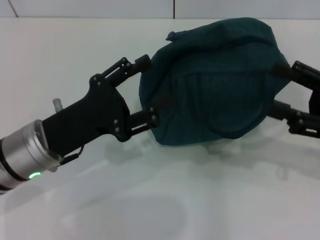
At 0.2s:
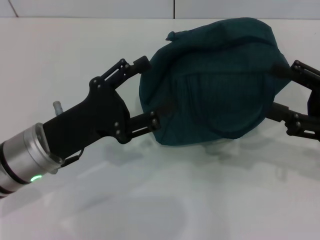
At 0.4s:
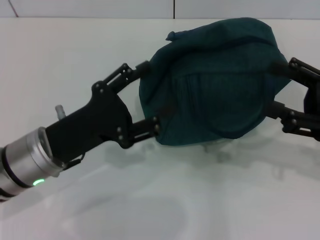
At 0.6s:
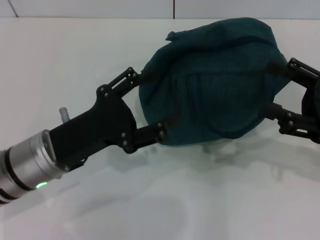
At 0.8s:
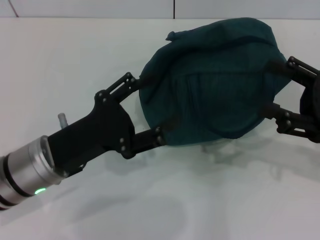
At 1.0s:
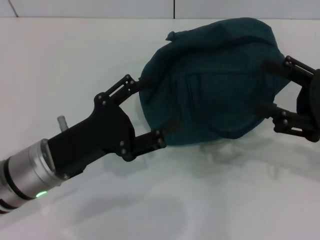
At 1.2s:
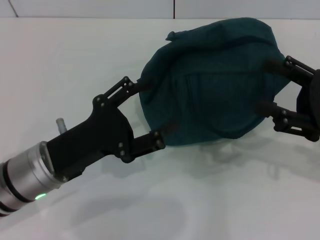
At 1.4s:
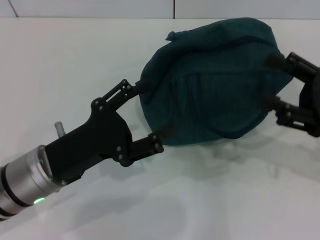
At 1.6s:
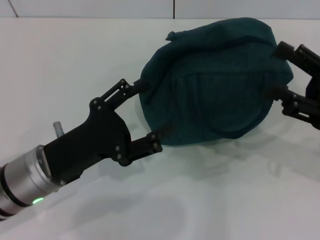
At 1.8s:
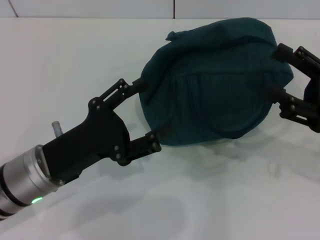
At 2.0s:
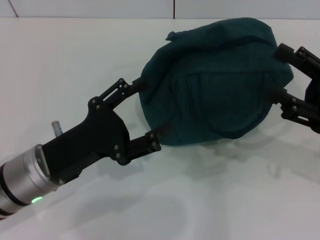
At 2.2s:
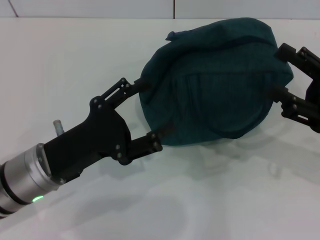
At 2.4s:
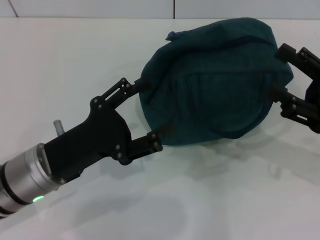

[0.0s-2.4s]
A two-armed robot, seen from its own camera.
0.0s to 2.4s: The grippers move only a little.

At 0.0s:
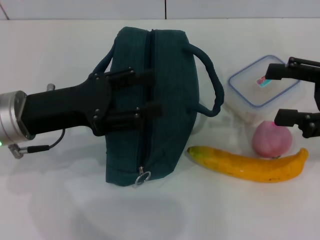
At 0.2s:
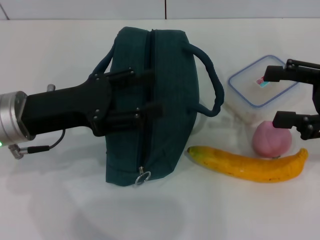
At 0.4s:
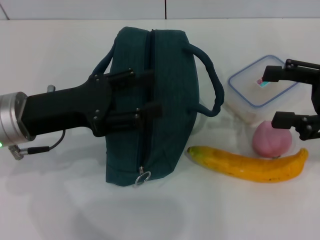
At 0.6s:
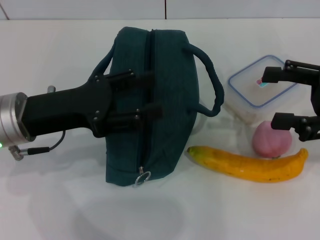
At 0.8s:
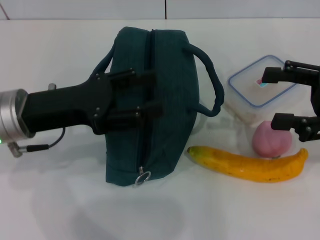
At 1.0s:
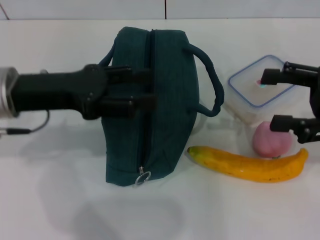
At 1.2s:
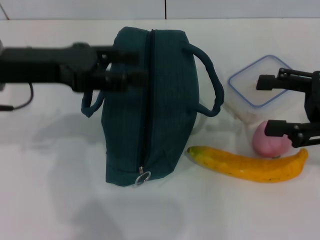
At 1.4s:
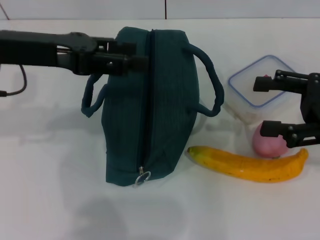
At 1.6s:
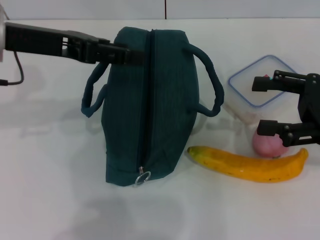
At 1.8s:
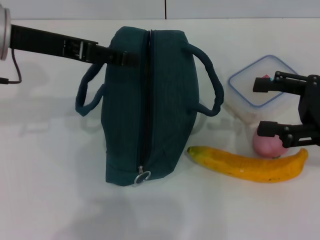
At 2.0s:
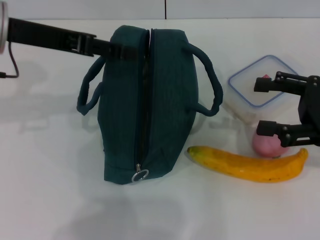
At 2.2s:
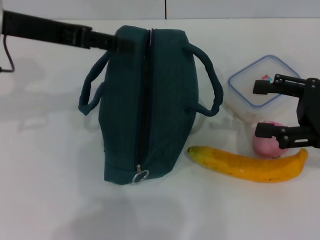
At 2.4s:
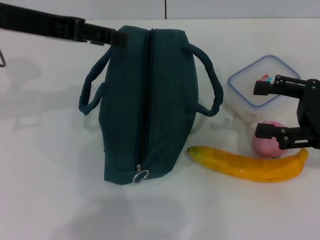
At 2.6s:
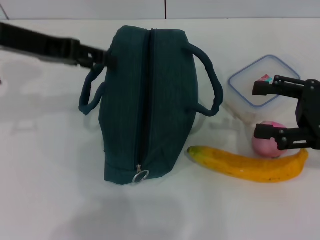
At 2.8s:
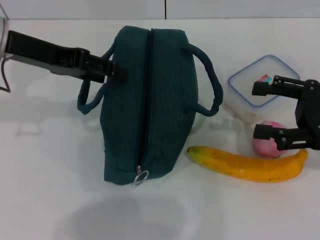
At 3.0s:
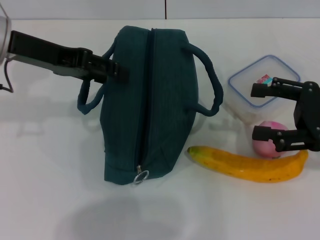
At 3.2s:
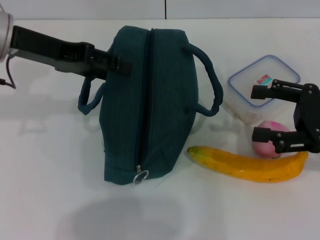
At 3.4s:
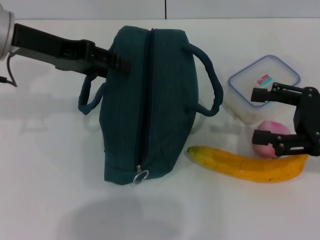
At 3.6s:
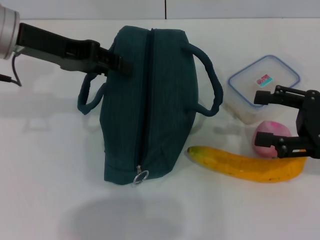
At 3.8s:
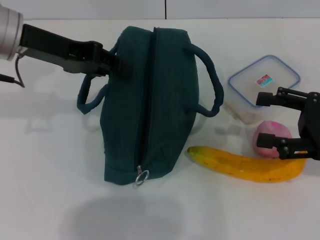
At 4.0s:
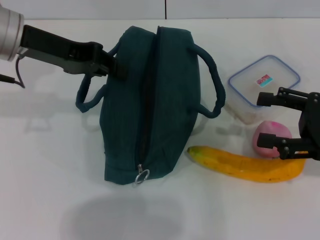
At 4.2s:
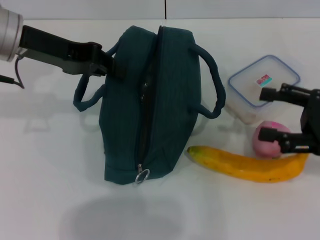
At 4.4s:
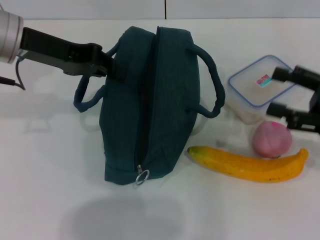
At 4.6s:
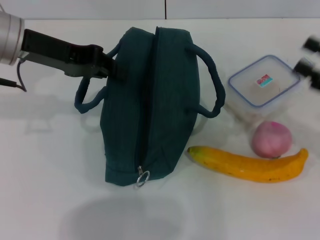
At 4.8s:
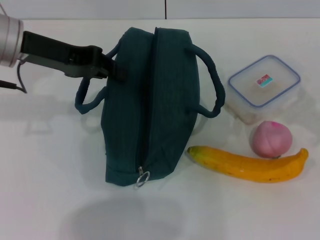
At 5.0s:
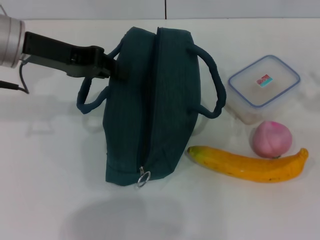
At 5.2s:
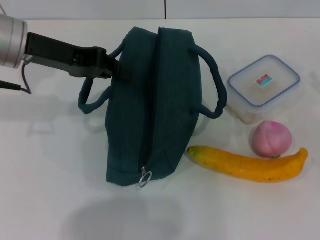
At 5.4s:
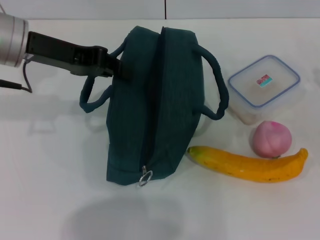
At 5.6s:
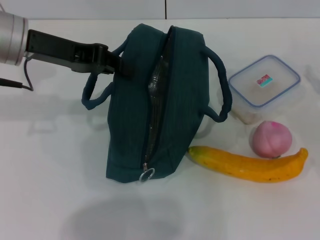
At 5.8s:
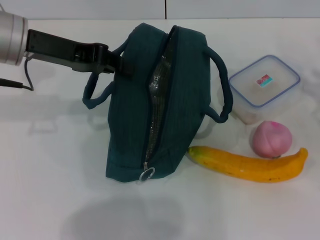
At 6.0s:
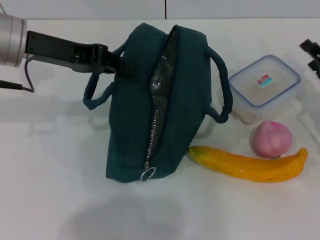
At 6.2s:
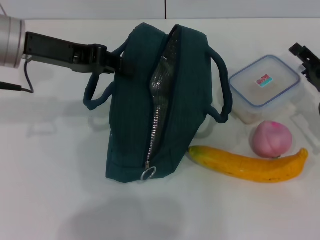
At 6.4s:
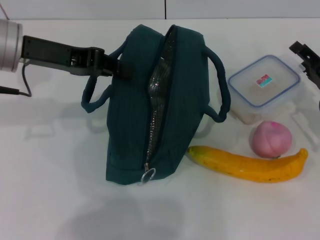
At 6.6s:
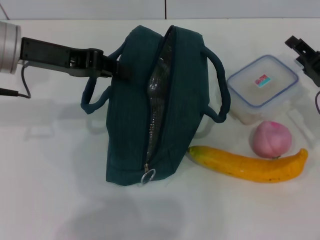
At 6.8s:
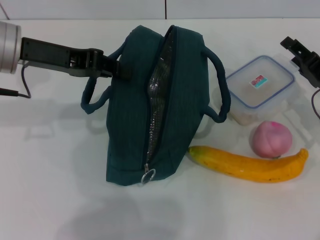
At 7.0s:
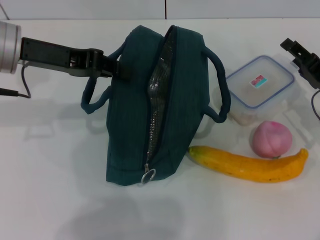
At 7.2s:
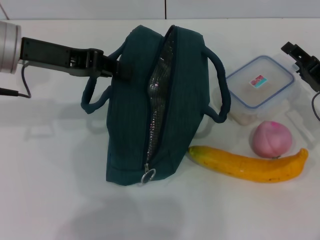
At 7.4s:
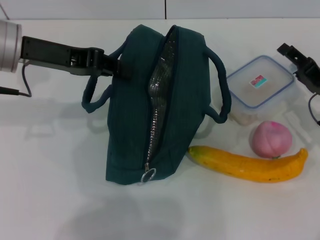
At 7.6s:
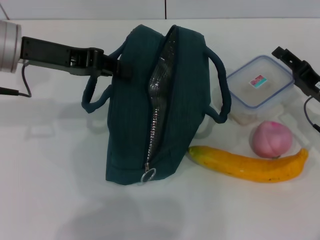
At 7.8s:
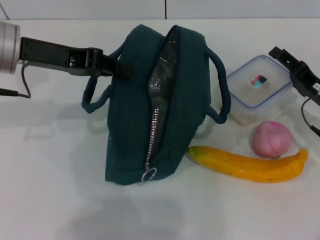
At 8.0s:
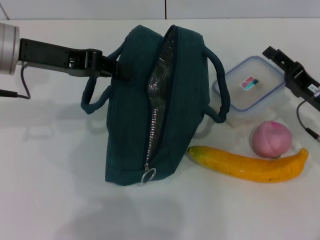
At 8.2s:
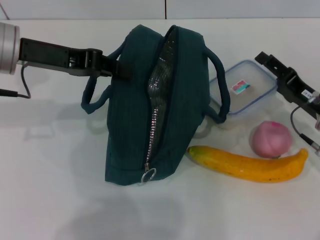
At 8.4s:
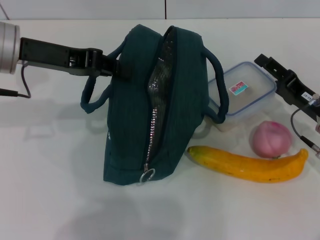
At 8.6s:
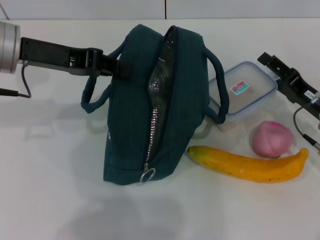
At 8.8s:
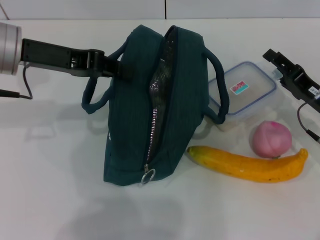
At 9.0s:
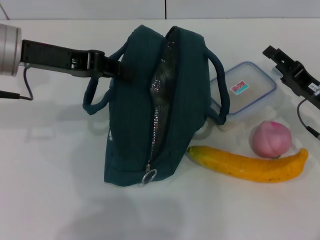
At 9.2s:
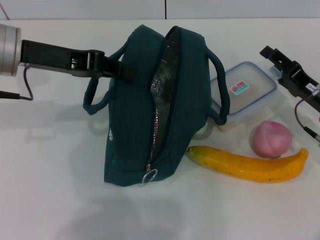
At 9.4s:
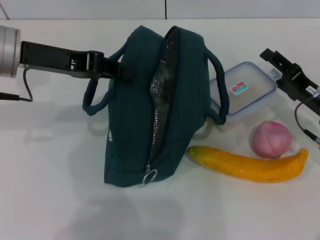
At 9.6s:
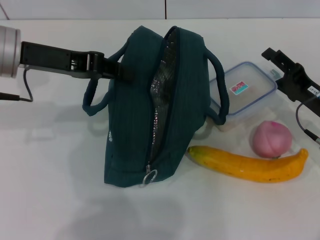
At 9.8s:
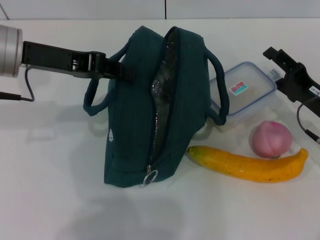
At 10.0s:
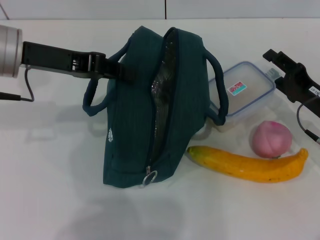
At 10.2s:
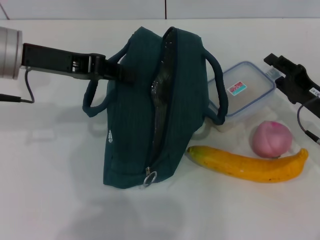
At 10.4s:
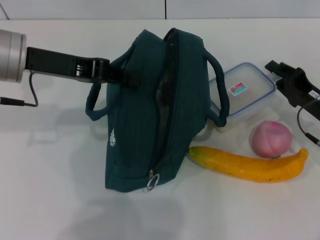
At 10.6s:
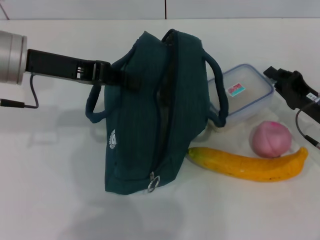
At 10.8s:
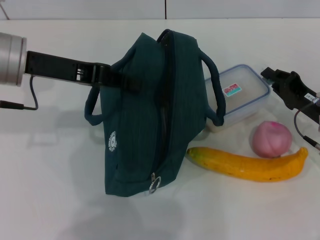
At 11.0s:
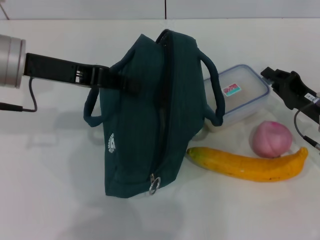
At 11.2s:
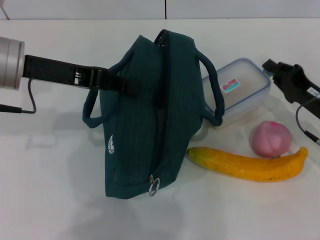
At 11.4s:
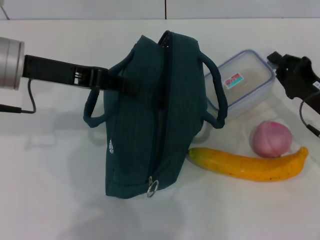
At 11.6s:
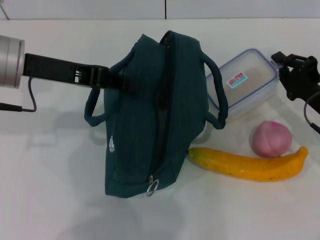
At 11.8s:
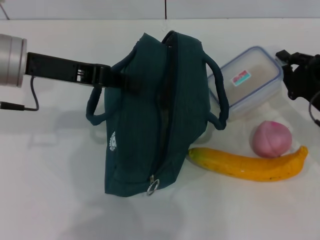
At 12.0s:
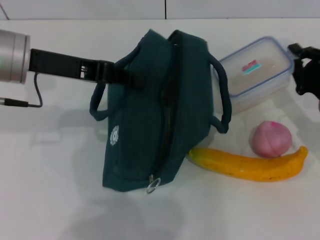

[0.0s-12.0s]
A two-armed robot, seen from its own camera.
Step, 0.0s to 5.0s: Hold the lunch bag with your left hand.
Step, 5.2s to 11.2s: Pick up the lunch box with your right hand.
0.0s to 1.6s: The left gripper goes roughly 10 cm upward and forward.
3.0s to 4.4s: The left gripper closes up.
4.4s to 6.0s: The right gripper shifts roughly 10 cm downward and forward.
6.0s to 10.4s: The grippers move only a little.
10.4s to 12.0s: The right gripper closes.

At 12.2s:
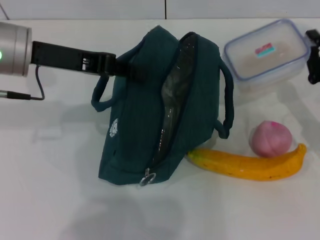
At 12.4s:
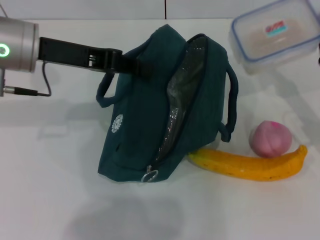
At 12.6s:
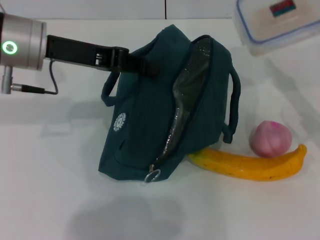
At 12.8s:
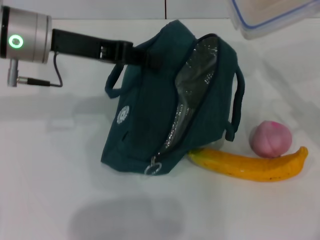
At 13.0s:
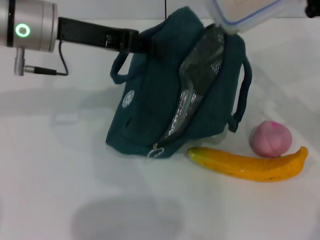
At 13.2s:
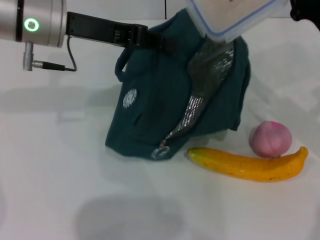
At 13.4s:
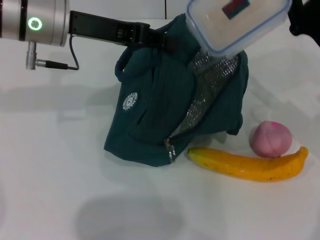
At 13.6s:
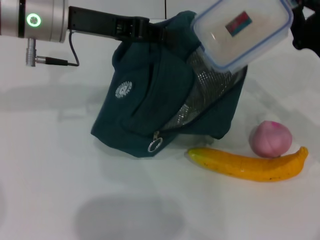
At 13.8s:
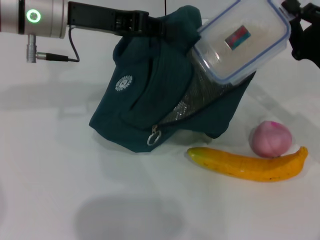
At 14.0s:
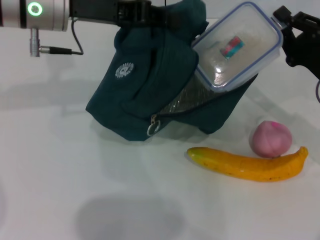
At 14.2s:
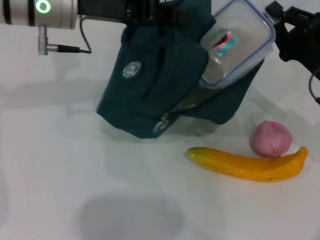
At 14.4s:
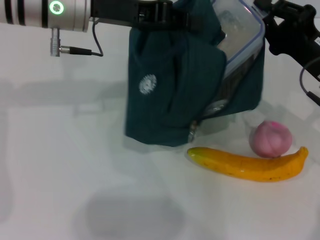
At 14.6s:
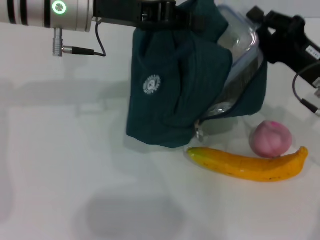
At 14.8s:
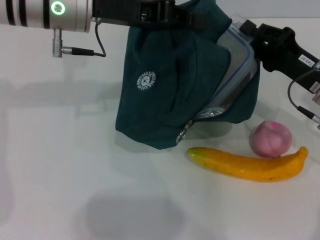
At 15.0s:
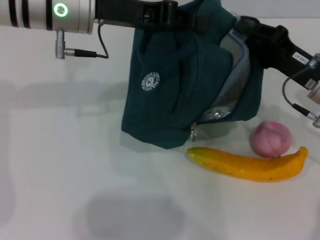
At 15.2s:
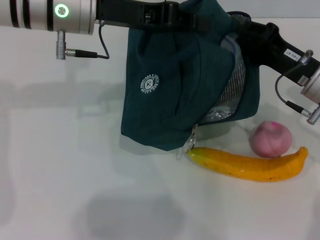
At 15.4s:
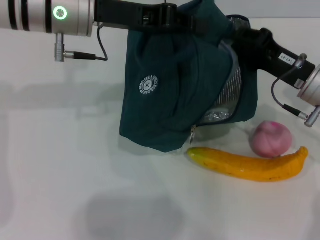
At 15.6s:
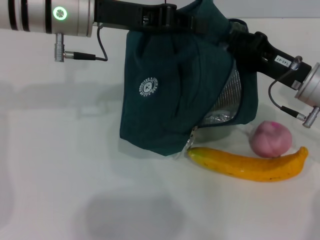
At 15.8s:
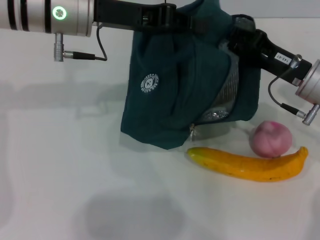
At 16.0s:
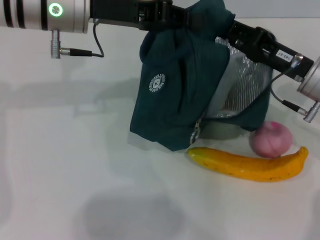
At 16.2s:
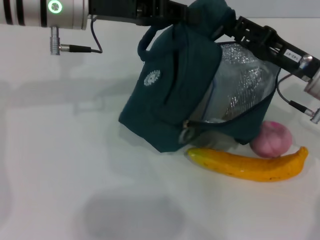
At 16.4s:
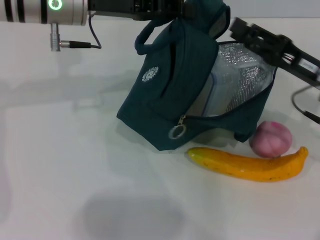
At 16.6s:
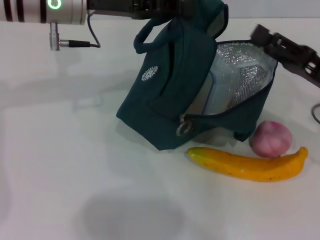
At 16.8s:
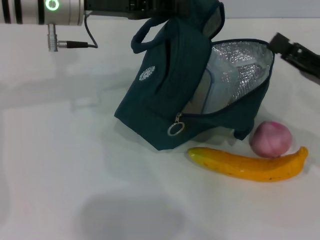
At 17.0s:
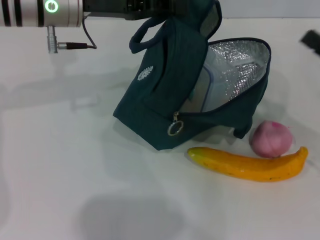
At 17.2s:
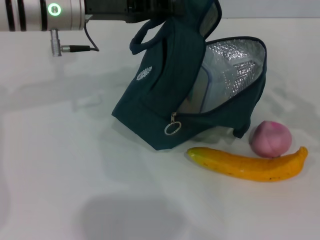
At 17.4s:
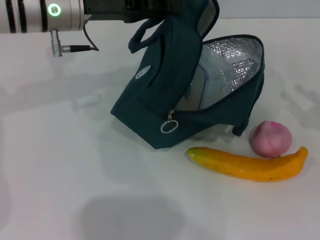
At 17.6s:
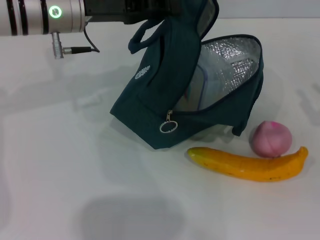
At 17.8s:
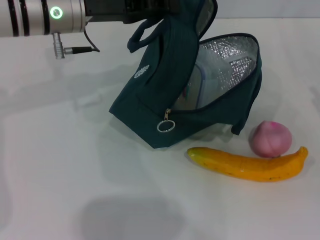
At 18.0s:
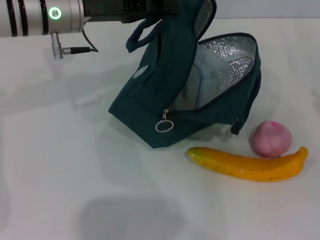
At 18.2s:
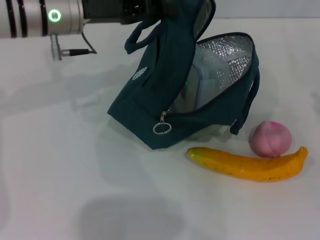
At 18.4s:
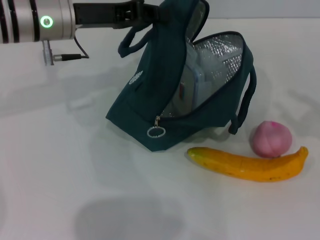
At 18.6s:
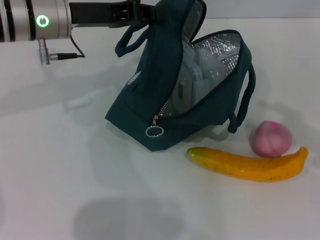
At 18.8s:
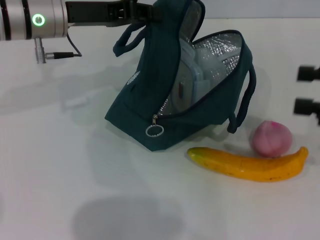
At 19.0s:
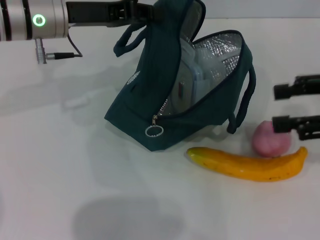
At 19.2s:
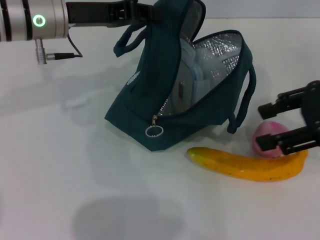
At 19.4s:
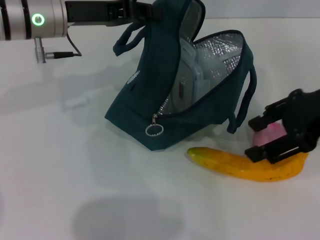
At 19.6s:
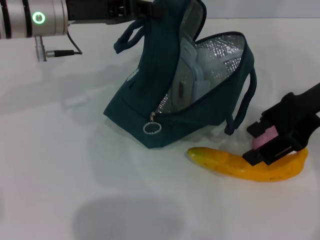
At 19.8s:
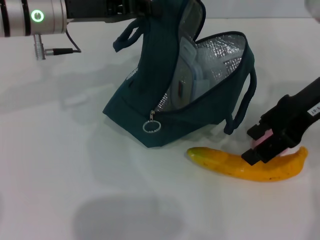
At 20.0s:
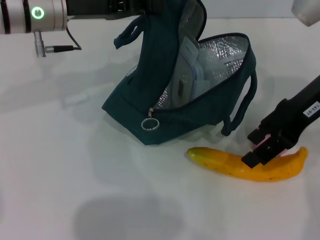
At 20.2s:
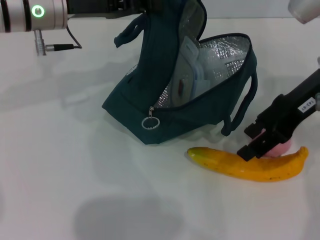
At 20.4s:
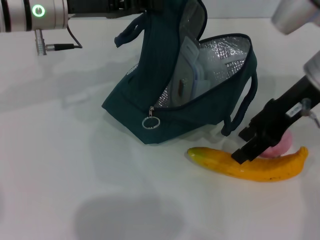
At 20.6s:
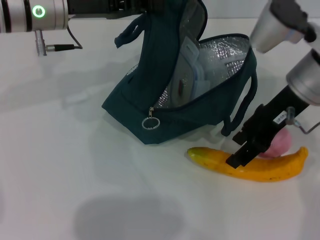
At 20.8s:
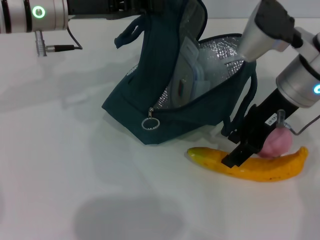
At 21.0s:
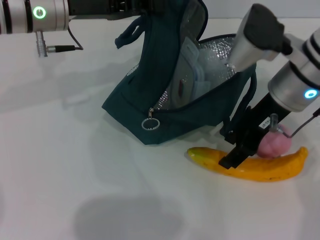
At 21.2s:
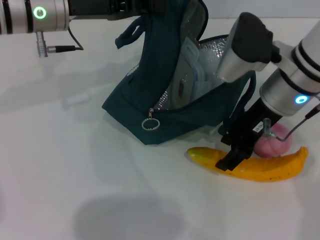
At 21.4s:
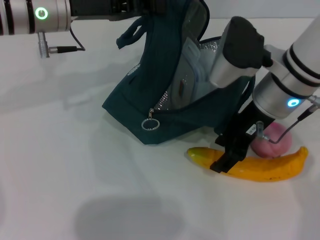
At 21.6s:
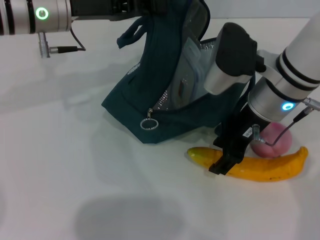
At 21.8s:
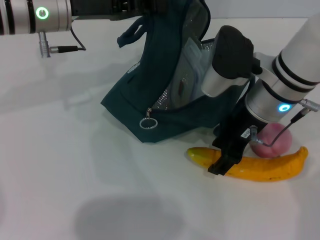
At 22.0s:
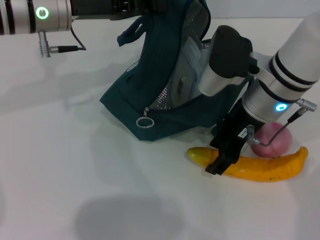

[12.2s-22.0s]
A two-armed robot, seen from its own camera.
Step, 12.2s to 16.0s: Place the lunch box into the lunch bag with your right hand.
12.2s to 13.6s: The left gripper ends up about 5 cm from where it was.
15.0s to 16.4s: The right gripper opens up.
16.4s to 17.8s: The right gripper moves to the right and backward, roughly 15 cm.
17.8s to 19.2s: The right gripper moves upward and to the left, approximately 20 cm.
19.2s to 20.6s: The right gripper travels to the left and forward by roughly 10 cm.
20.6s to 22.0s: The right gripper shifts approximately 5 cm to the left.
